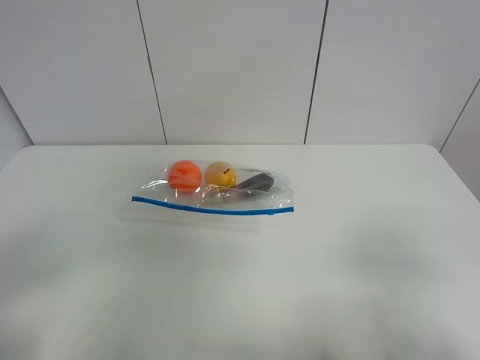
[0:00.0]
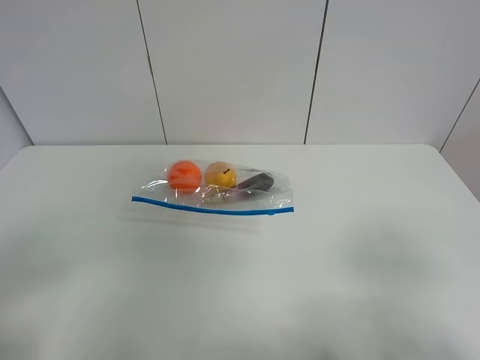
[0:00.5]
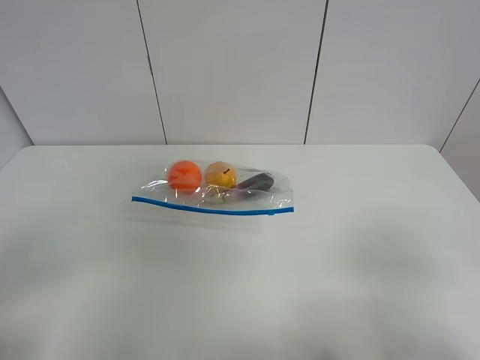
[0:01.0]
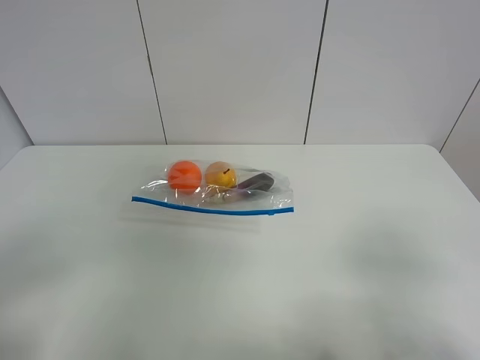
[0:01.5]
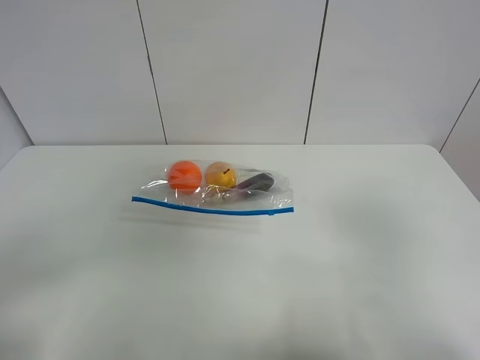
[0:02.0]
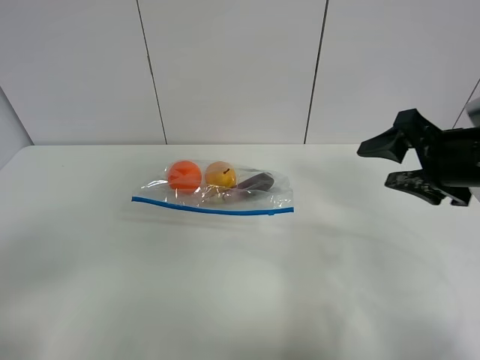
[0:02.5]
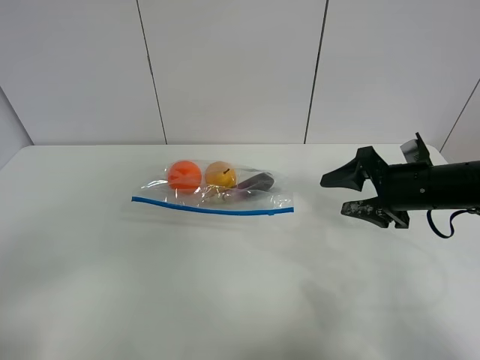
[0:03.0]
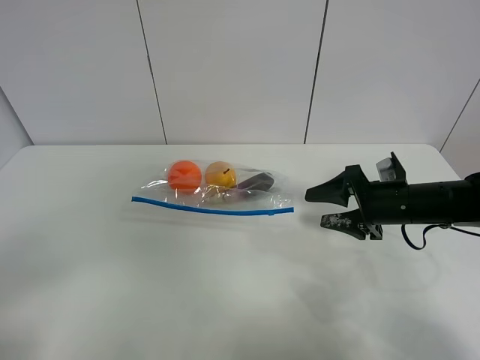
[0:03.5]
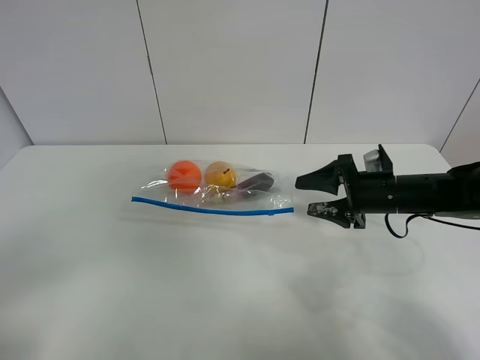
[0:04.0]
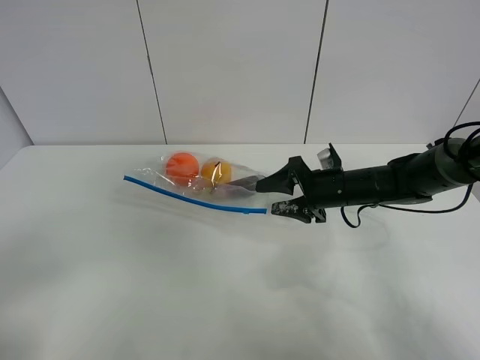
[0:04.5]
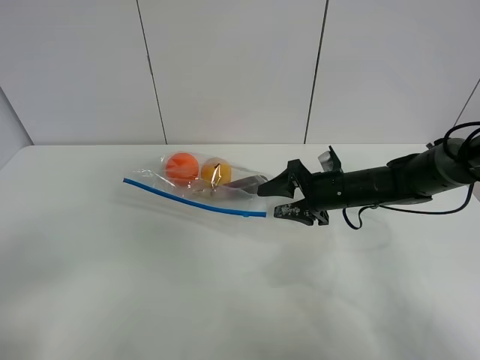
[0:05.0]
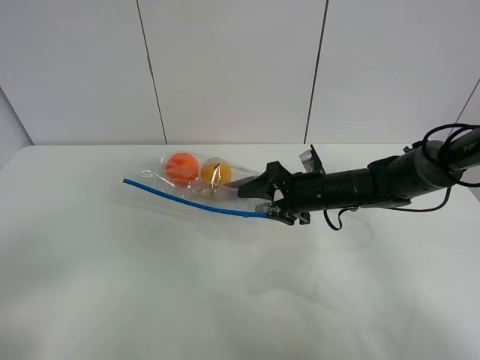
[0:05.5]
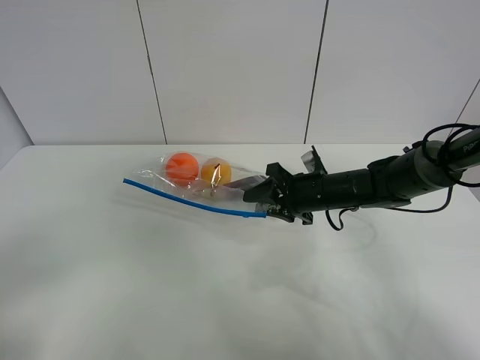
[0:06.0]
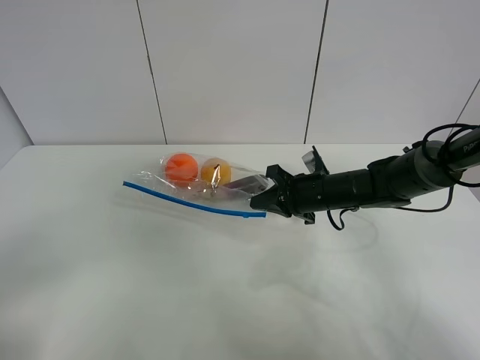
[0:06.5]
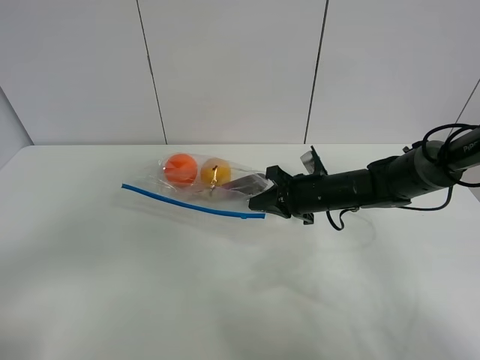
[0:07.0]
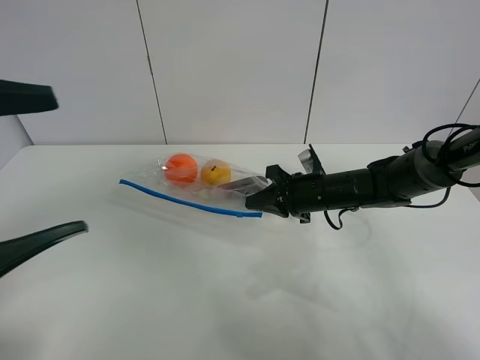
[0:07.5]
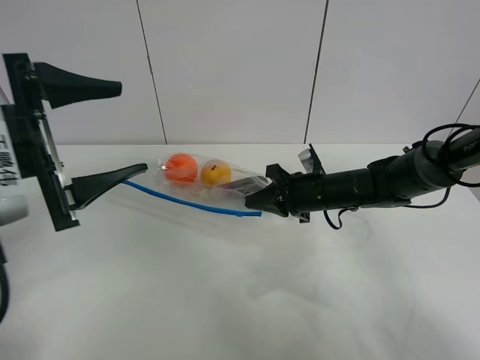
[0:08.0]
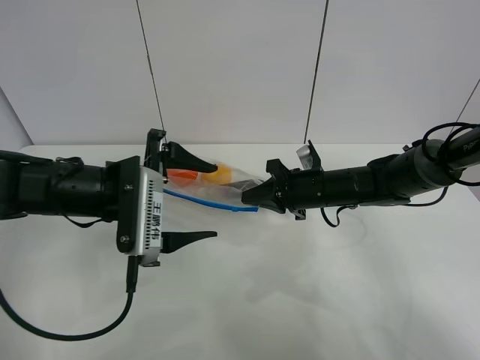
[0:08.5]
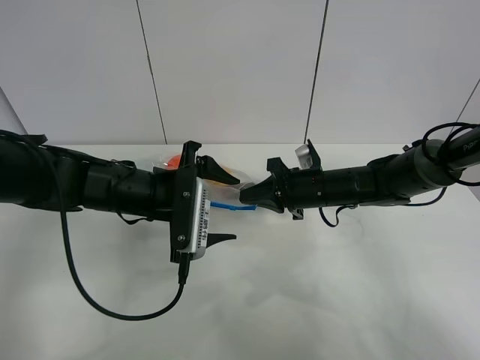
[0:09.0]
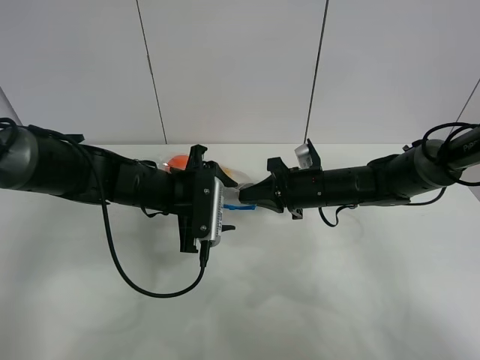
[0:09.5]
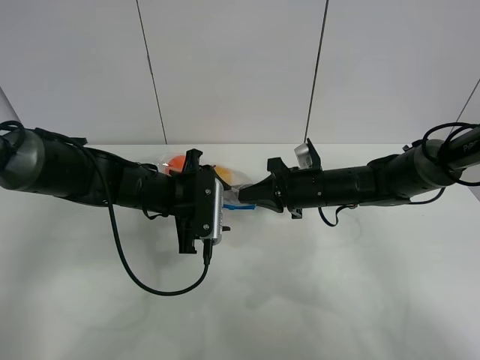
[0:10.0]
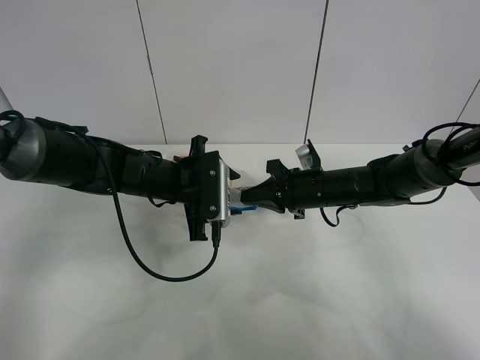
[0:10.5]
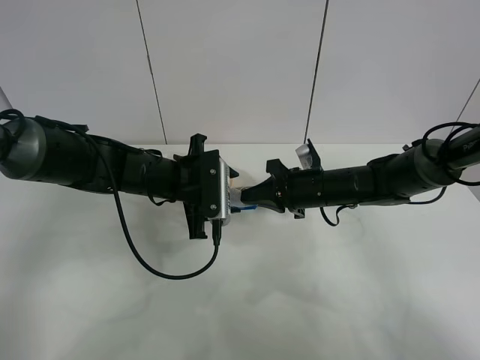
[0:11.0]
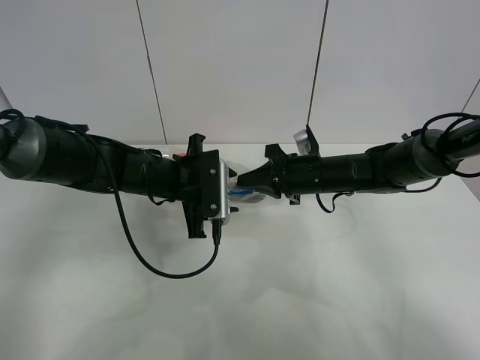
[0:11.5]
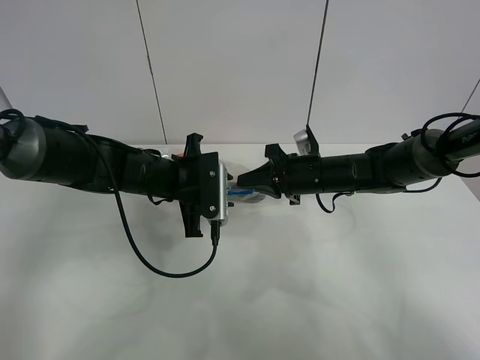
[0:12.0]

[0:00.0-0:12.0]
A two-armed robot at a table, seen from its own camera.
Step, 0:00.0 to 0:06.0: Grasp the fruit bag with right gripper.
0:02.0 to 0:04.0: The right gripper moves forward and downward, roughly 30 cm.
0:04.0 to 0:06.0: The right gripper moves to the left, approximately 10 cm.
0:06.0 to 0:08.0: The left gripper moves forward, some 25 cm; the right gripper closes.
0:08.0 to 0:10.0: The left gripper travels downward, to the right and forward by approximately 20 cm.
0:10.0 to 0:12.0: The grippers make only small movements.

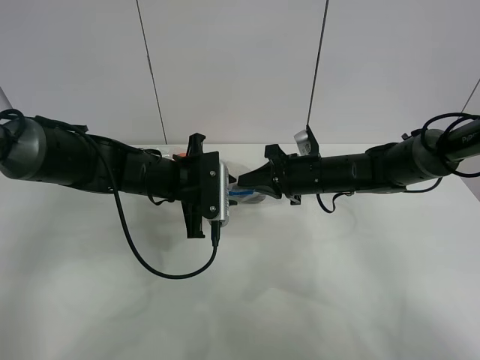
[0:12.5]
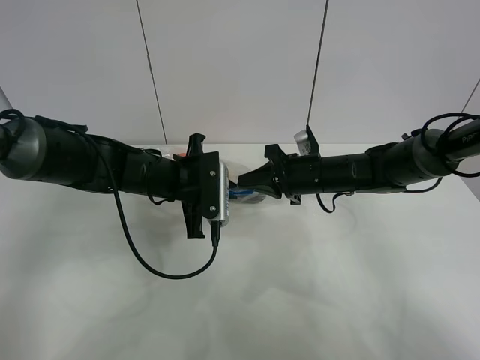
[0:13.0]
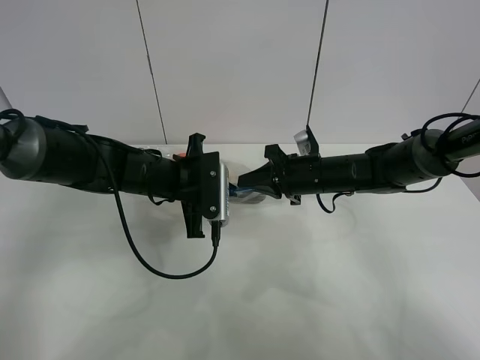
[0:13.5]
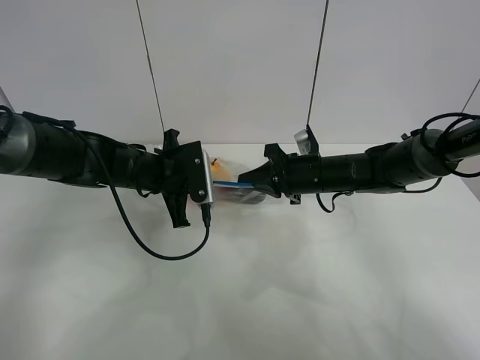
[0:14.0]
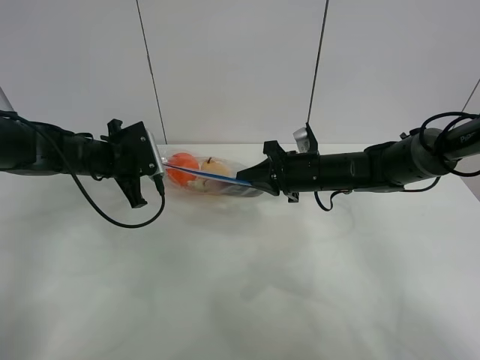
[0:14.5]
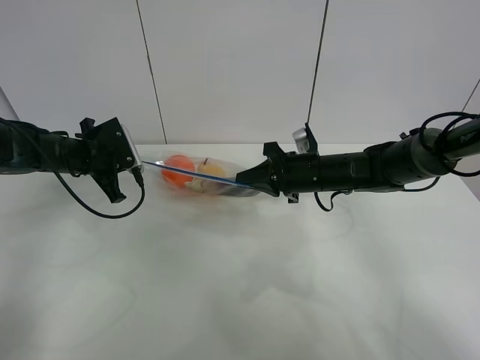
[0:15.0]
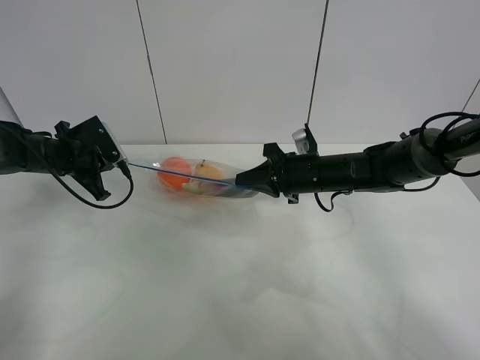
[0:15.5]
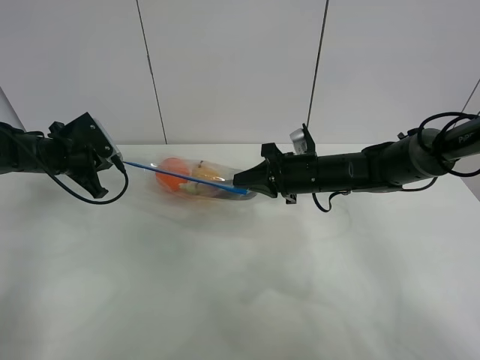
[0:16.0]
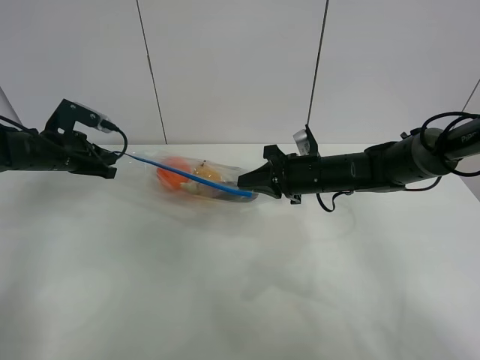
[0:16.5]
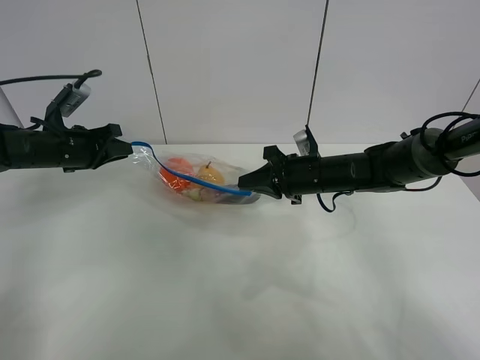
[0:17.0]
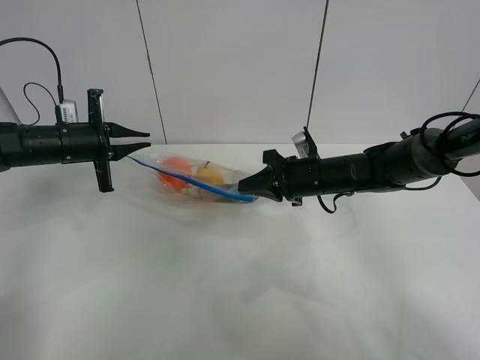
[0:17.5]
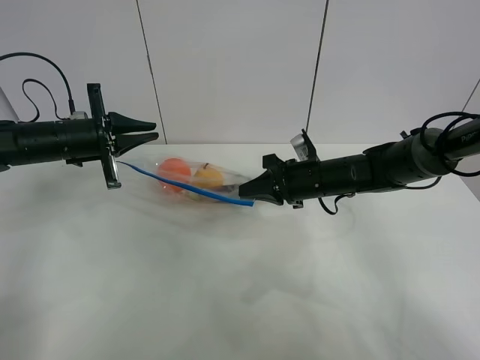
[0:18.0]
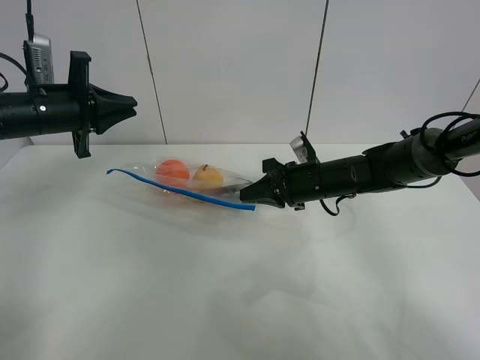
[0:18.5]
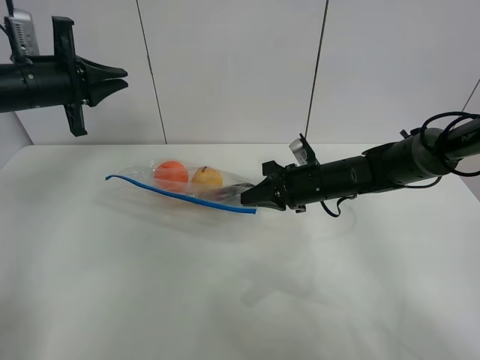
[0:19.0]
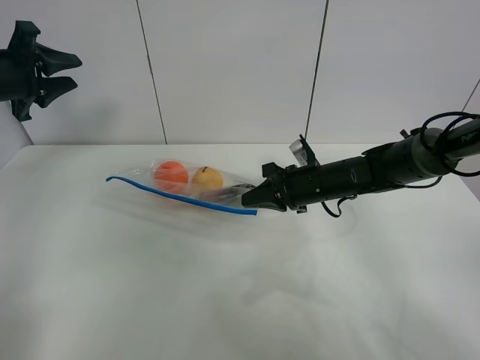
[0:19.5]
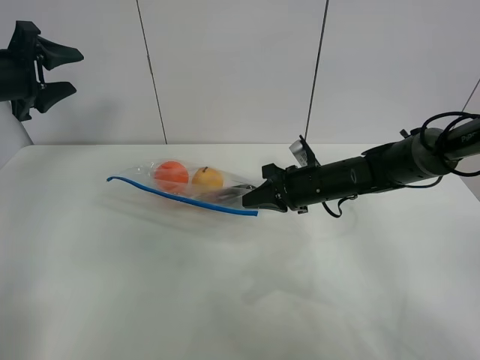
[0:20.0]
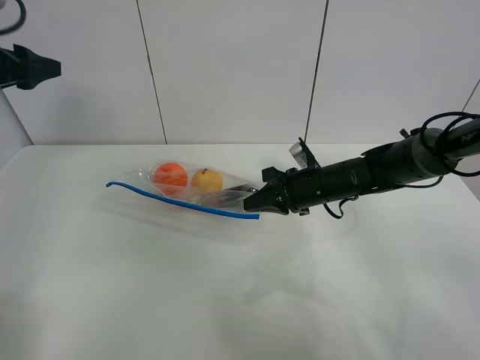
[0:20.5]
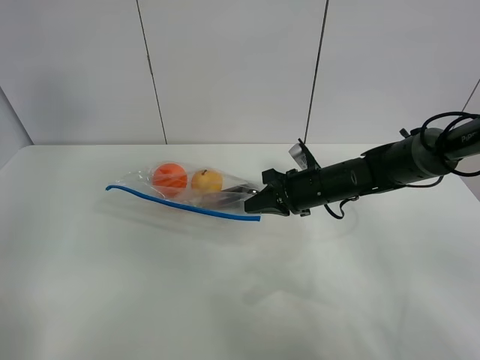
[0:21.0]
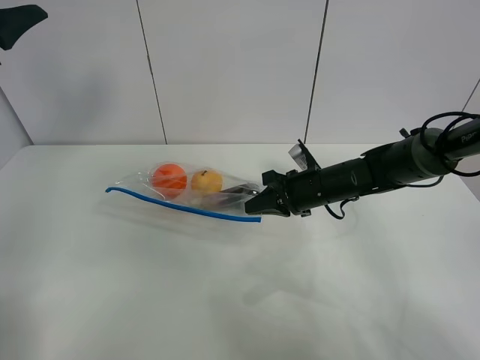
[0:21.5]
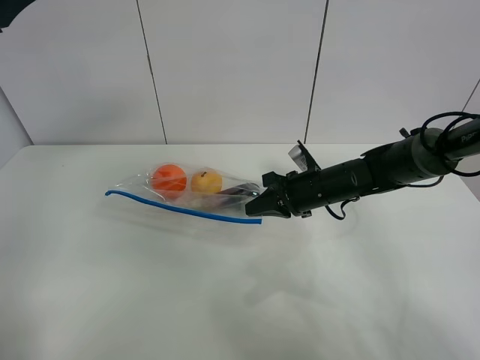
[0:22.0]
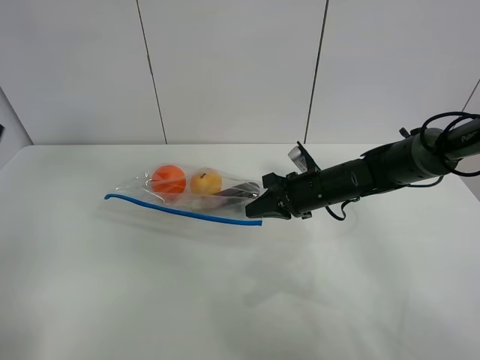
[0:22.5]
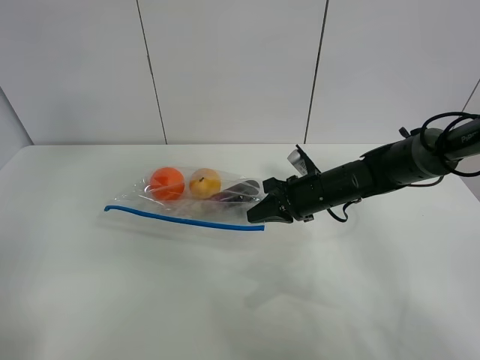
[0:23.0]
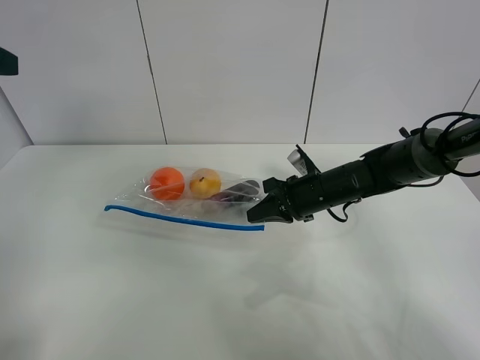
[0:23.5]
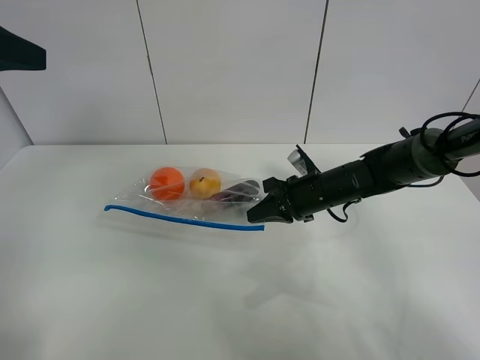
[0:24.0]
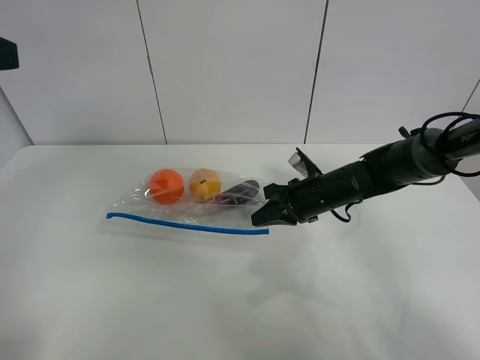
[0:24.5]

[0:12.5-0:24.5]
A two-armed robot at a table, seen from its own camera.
Step, 0:12.5 to 0:17.0: Pull the fruit bag with left gripper.
0:12.5 to 0:14.5: The left gripper travels to the left by approximately 15 cm, and closes up.
0:14.5 to 0:16.5: The left gripper heads to the left, covering some 5 cm.
0:16.5 to 0:18.5: The left gripper is displaced upward by about 10 cm.
0:18.5 to 0:20.5: The left gripper moves to the left and upward, about 10 cm, and opens up.
0:20.5 to 0:22.5: The left gripper travels backward by some 10 cm.
0:22.5 to 0:24.5: The left gripper heads to the right and backward, covering some 10 cm.

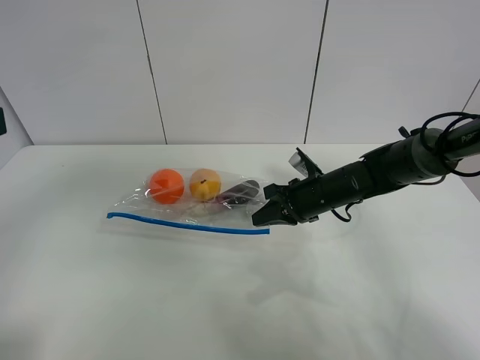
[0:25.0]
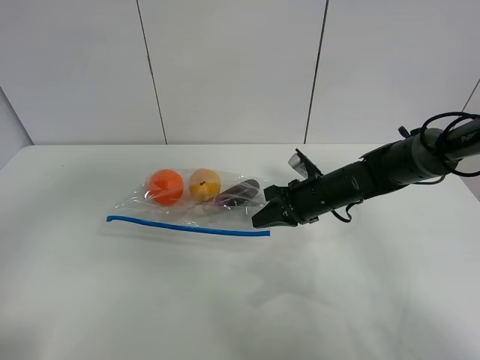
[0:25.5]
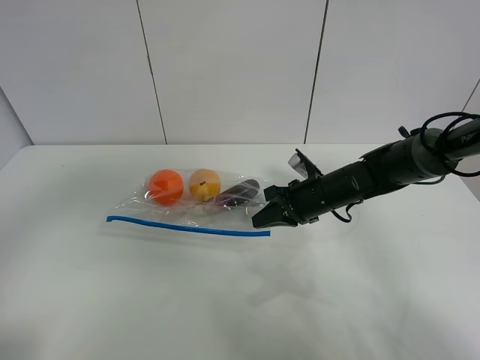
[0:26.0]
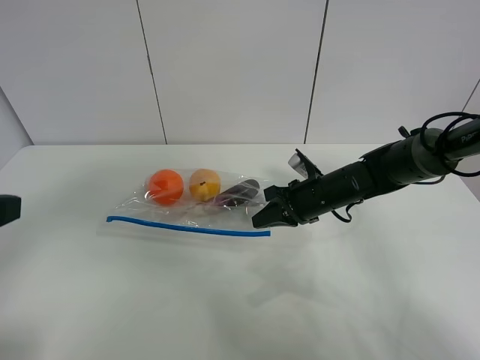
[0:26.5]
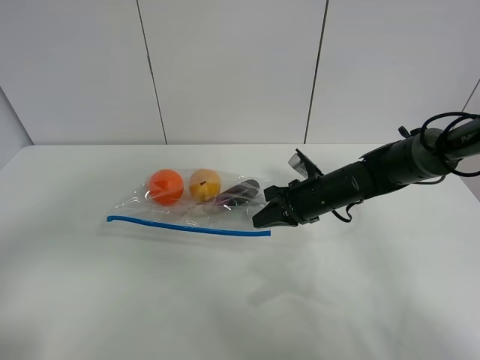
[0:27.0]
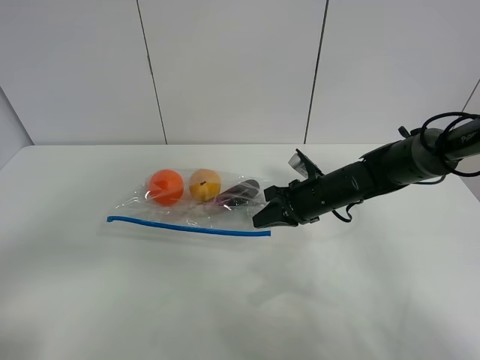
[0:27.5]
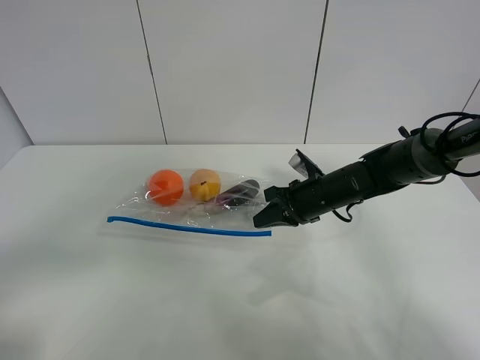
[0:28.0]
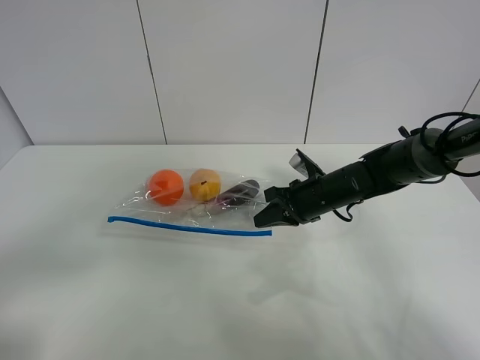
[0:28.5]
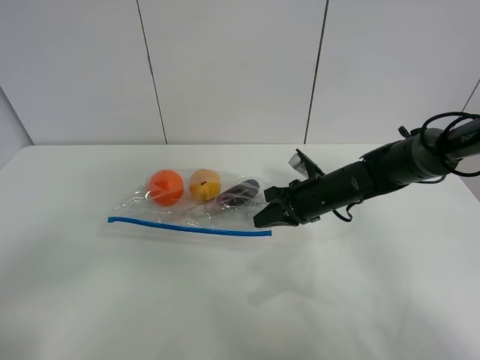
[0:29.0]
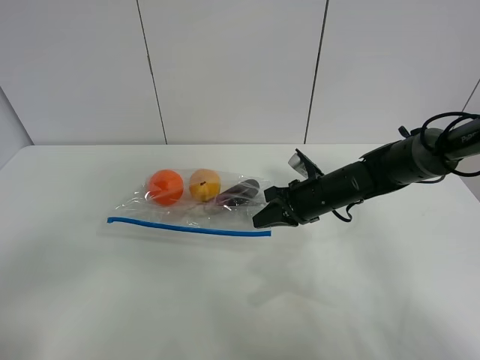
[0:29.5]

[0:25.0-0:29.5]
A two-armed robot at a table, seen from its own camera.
0:25.0 to 0:27.0: The left gripper goes about 10 cm backward and downward.
0:27.0 to 0:29.5: The left gripper shifts about 5 cm backward.
